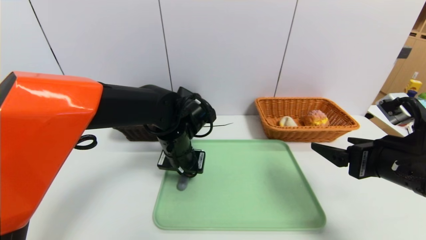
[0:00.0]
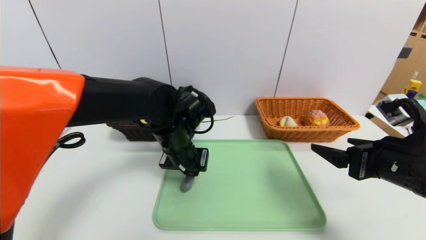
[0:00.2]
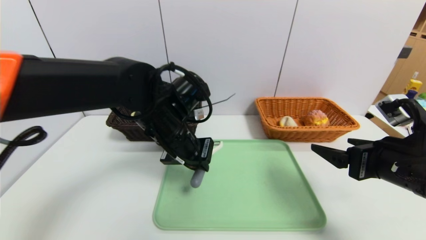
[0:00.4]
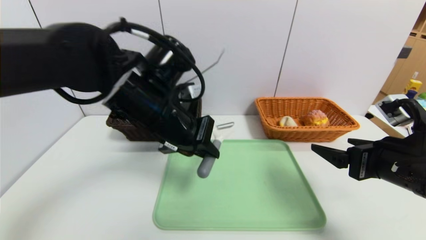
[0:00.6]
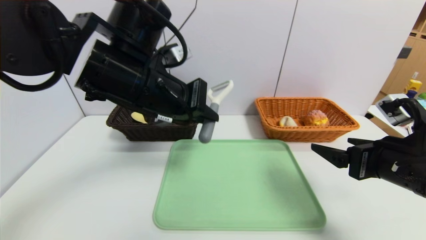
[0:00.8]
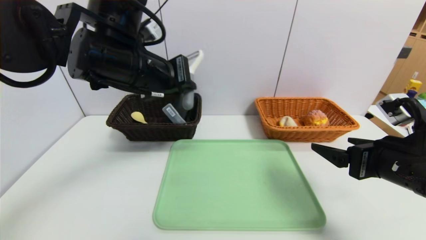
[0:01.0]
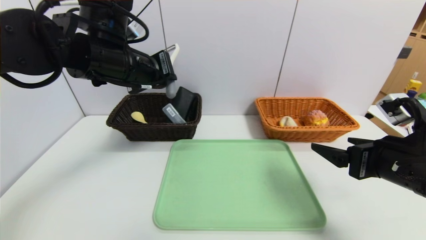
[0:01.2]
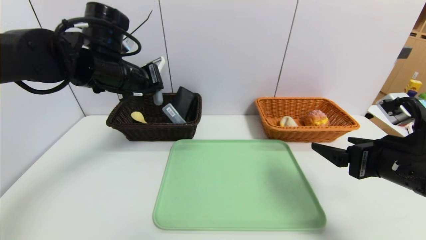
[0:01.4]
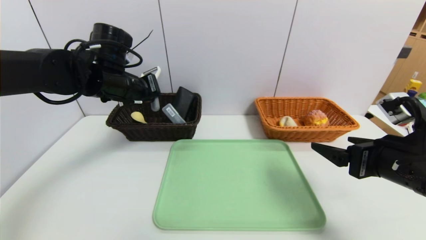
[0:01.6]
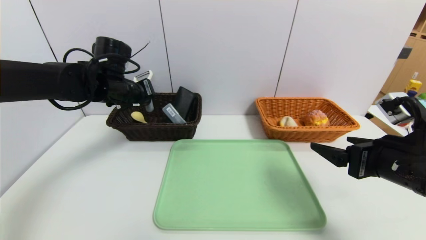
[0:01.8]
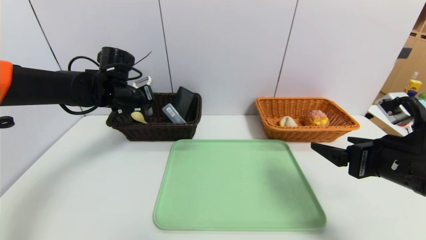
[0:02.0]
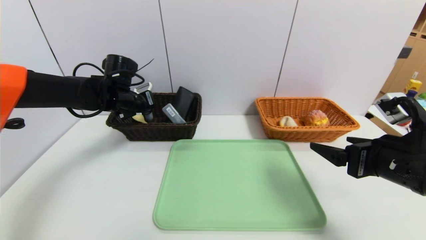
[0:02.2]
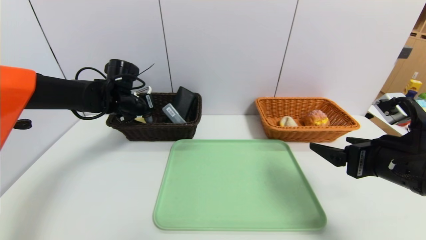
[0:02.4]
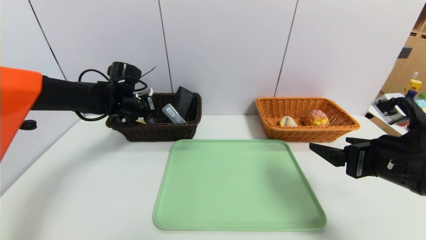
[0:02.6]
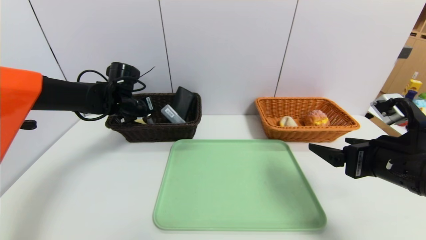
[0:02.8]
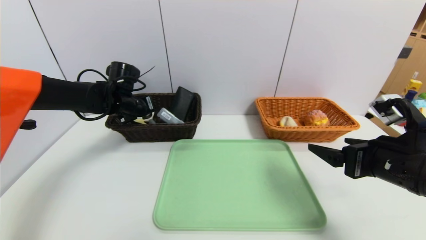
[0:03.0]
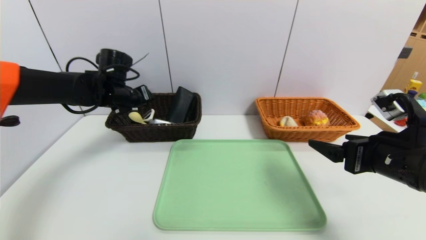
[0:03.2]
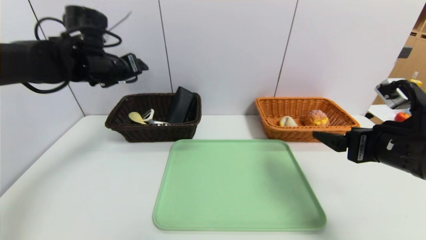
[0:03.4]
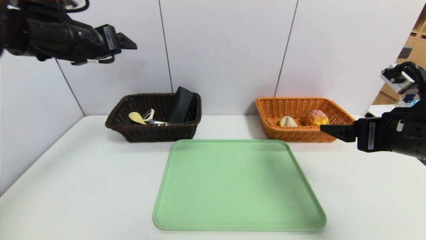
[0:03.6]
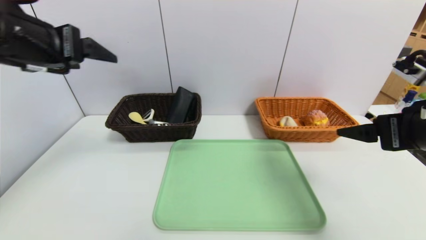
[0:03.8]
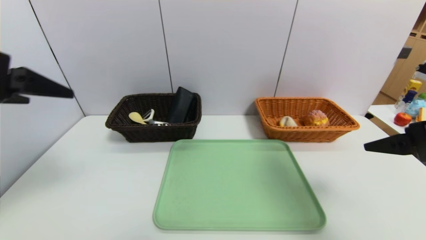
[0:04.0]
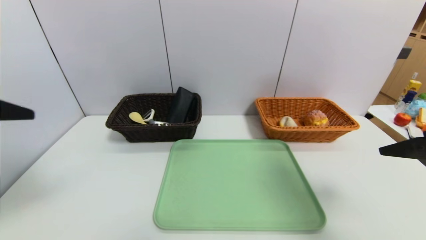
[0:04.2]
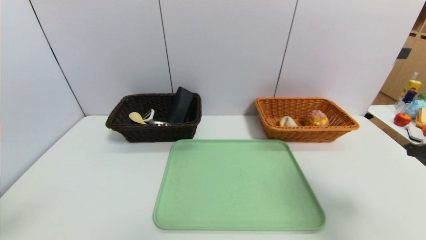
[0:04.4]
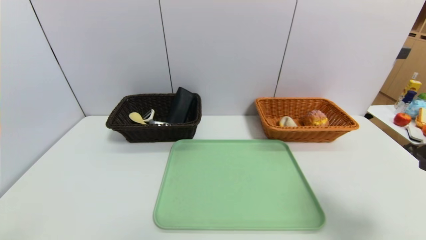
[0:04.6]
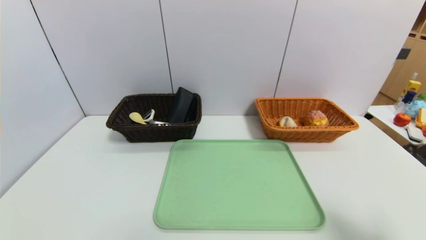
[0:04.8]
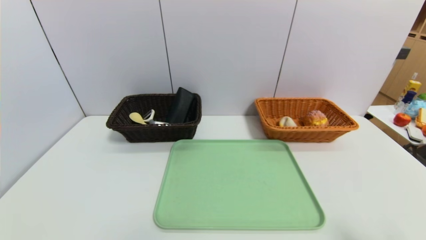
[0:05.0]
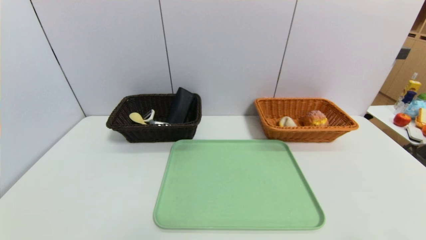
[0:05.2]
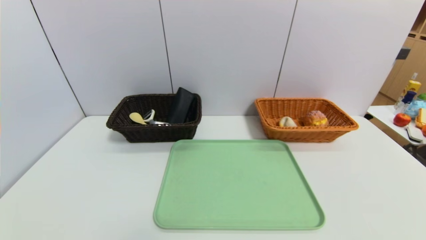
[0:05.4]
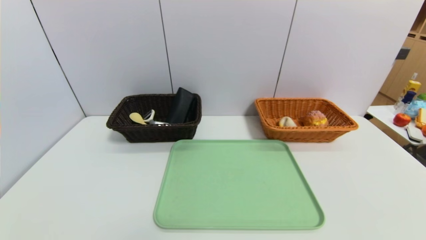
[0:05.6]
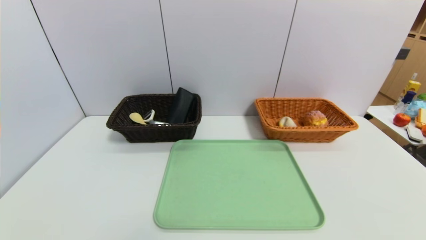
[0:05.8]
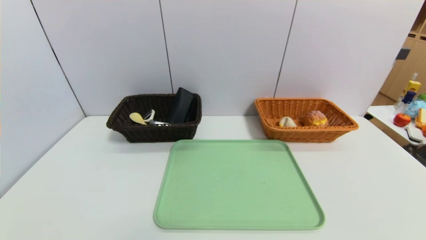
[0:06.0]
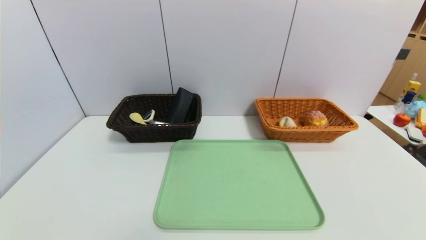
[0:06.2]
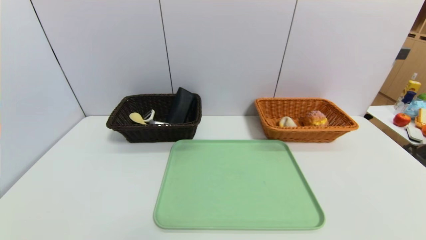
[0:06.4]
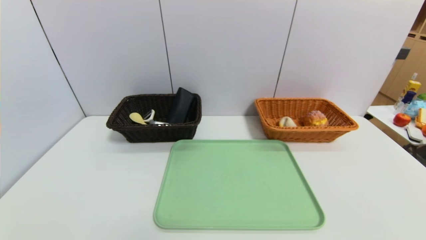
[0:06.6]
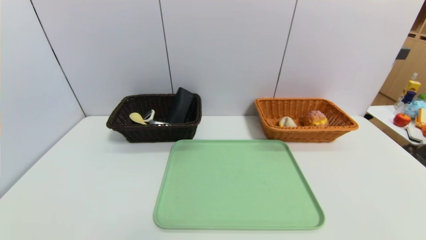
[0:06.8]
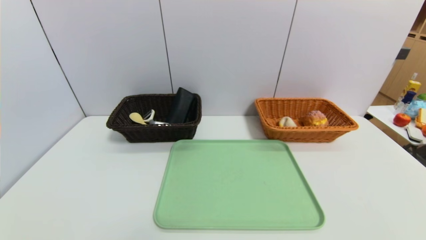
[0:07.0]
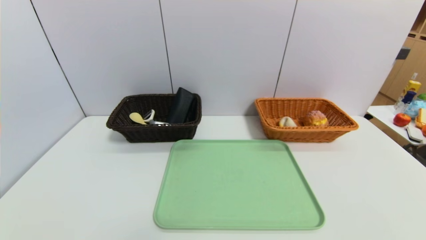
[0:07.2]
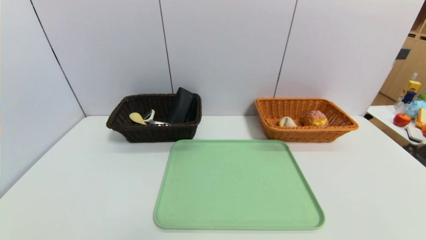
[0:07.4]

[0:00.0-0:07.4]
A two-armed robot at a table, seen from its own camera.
Task of the whole recording: place the food in the right basket with the right gripper, and place the non food items in the left basket with the left gripper.
0:00.0 to 0:01.4: The left gripper travels upward and to the left by some 20 cm.
0:01.4 to 0:03.0: The left gripper goes approximately 15 cm downward and forward, and opens.
0:03.0 to 0:04.4: The right gripper is displaced upward, backward and to the right by about 15 cm. Meanwhile the left gripper shifts some 40 cm backward, and opens.
0:04.4 to 0:06.0: Both grippers travel together downward and backward, about 20 cm.
